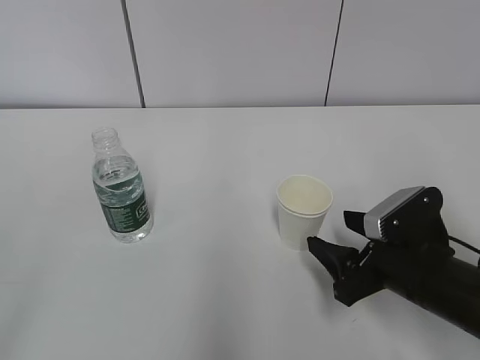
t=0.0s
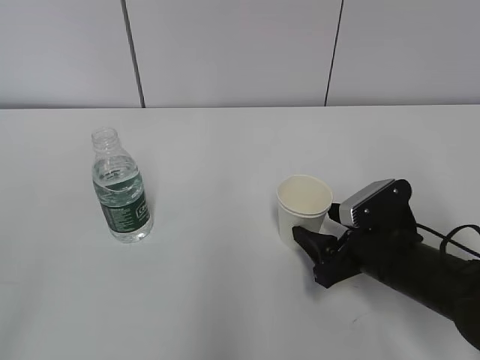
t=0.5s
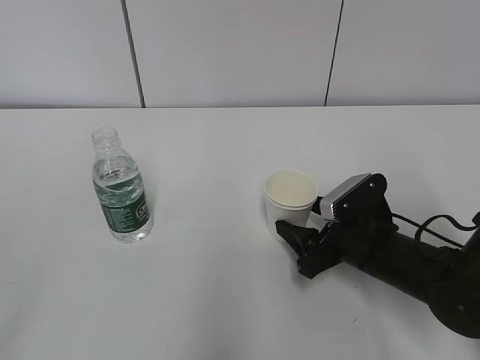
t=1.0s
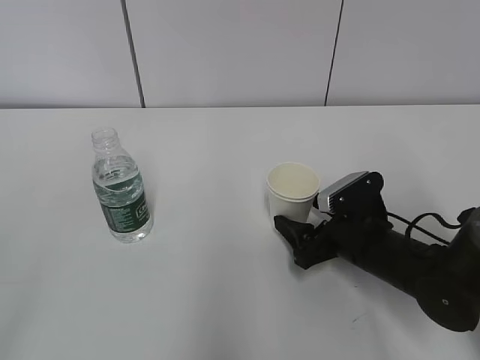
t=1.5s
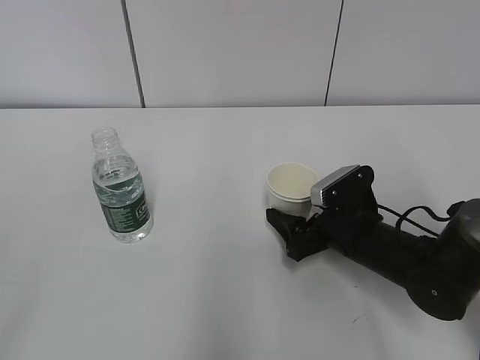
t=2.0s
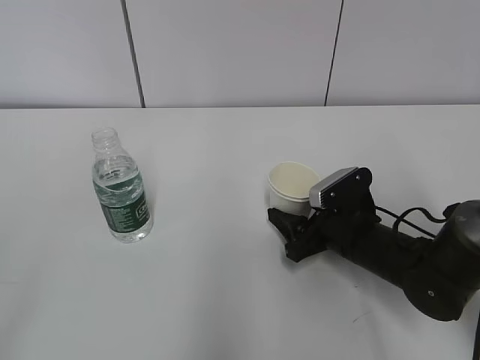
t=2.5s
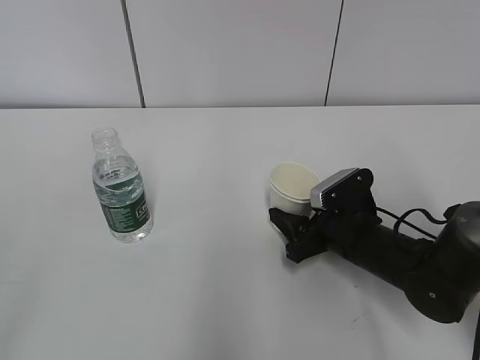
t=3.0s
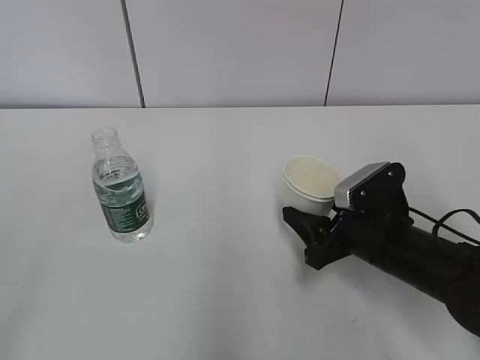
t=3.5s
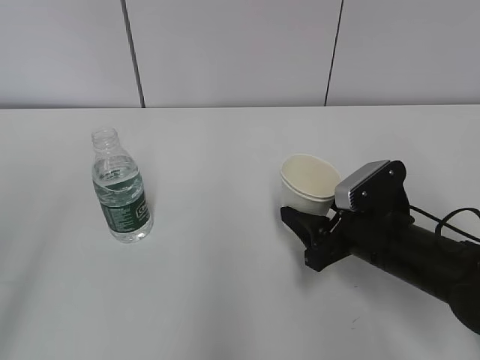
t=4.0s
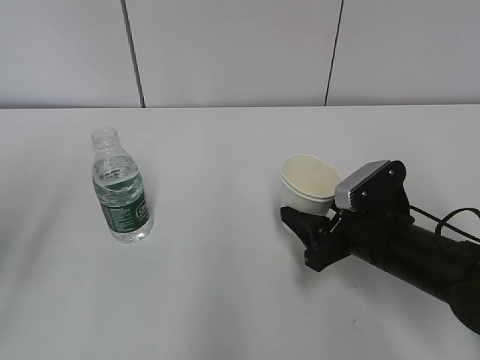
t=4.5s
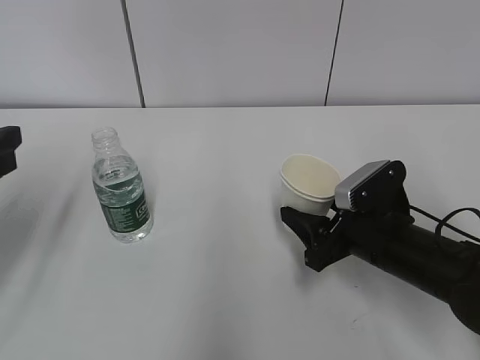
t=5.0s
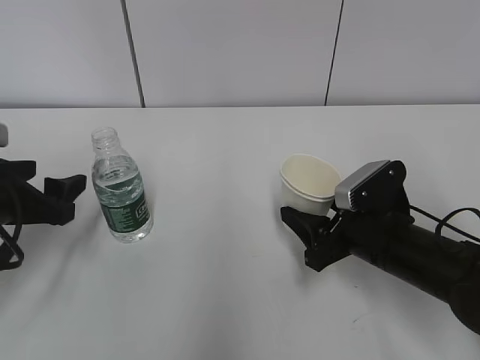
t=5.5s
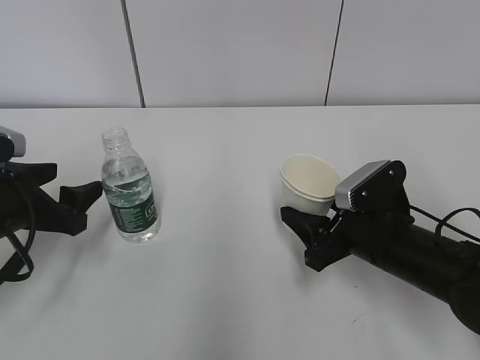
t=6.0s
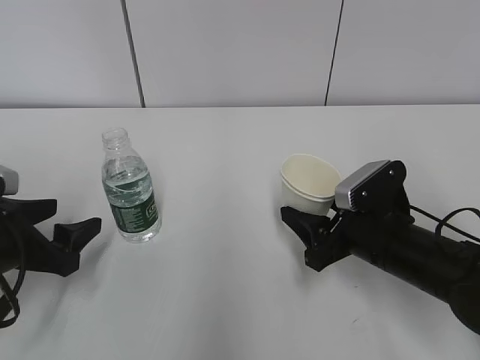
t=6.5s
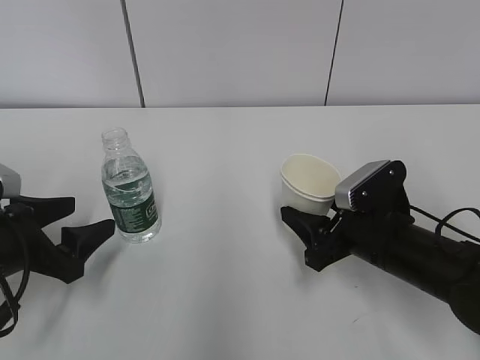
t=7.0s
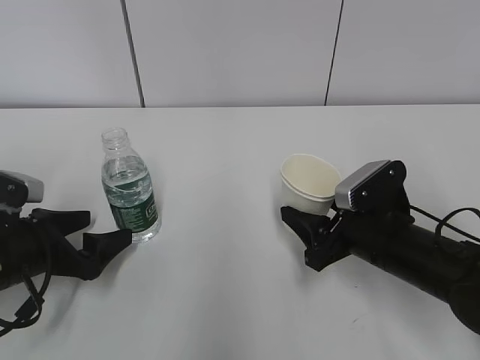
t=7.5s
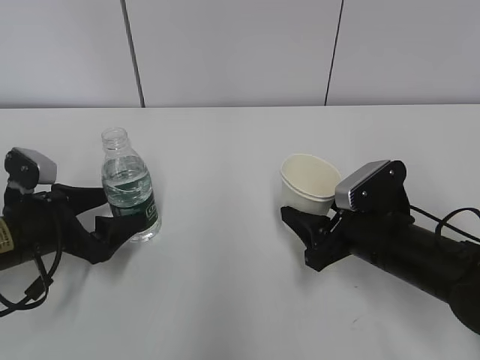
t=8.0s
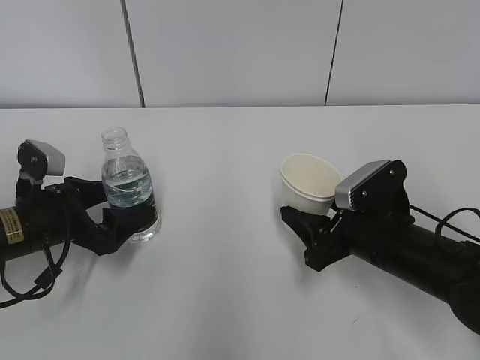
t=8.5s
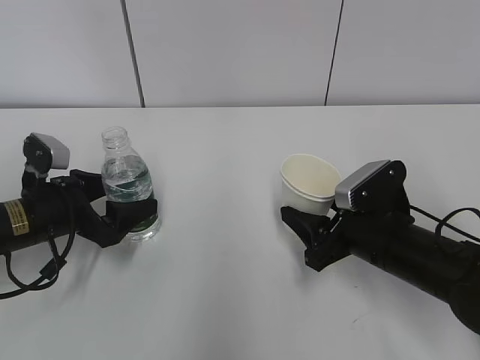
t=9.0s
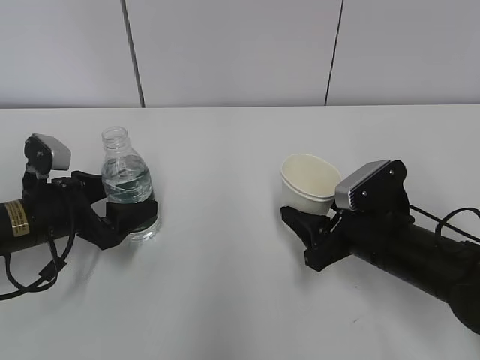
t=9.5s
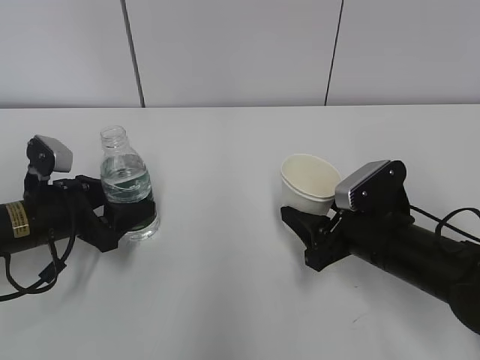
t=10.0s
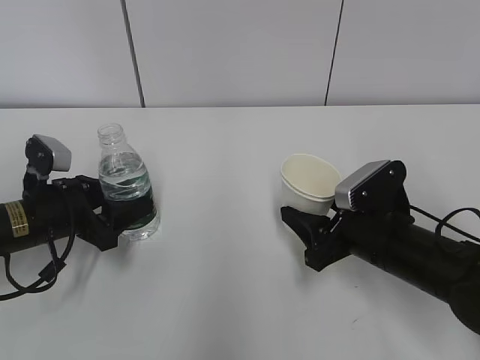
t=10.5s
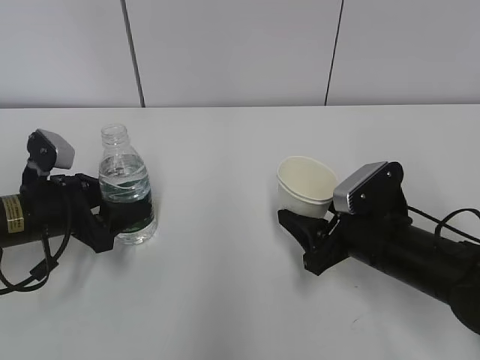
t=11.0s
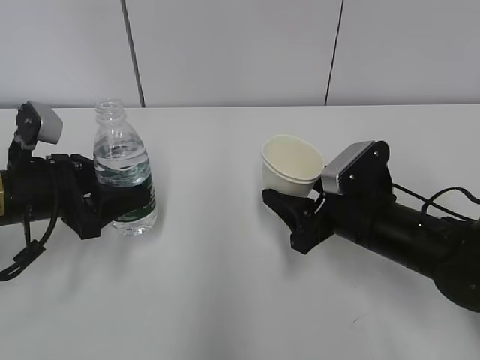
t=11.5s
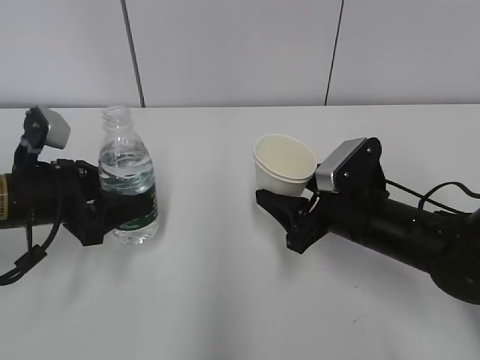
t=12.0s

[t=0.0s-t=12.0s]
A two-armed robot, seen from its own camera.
Step, t=1.5s to t=7.5s: Grab the water bottle with the left hand.
t=0.0s to t=2.0s: The right gripper moves forward, roughly 10 cm, and opens its fingers.
t=2.0s to t=4.0s: The right gripper ends up about 5 cm from where it was, and closes up. The left gripper is displaced forward by about 10 cm.
t=4.0s to t=6.0s: The left gripper moves forward and downward, approximately 30 cm.
t=8.0s to t=10.0s: The left gripper closes up.
t=10.0s to t=12.0s: The left gripper goes some 5 cm upward.

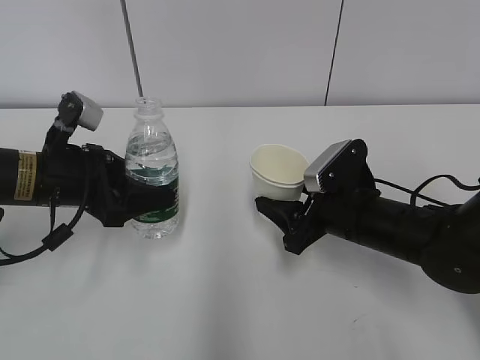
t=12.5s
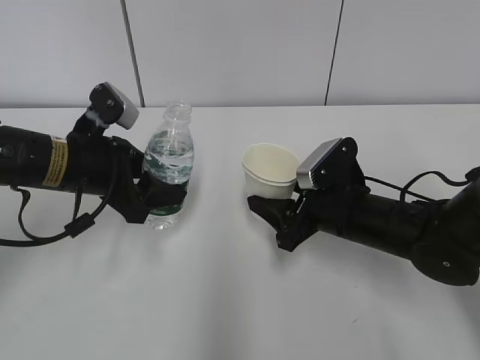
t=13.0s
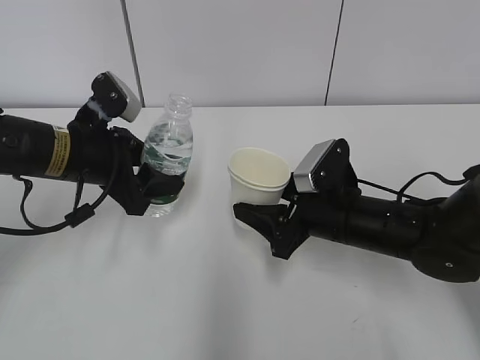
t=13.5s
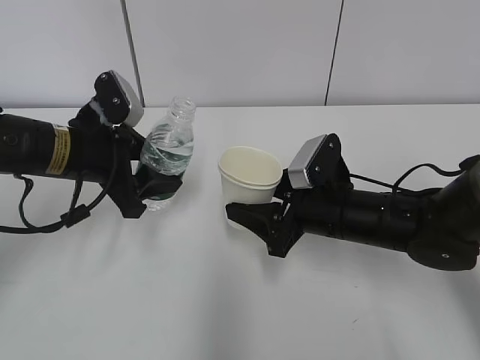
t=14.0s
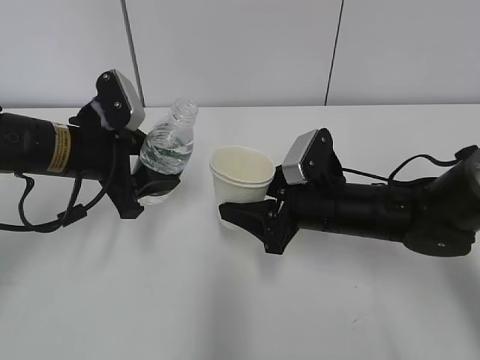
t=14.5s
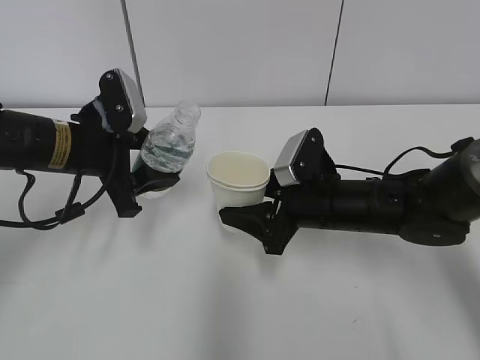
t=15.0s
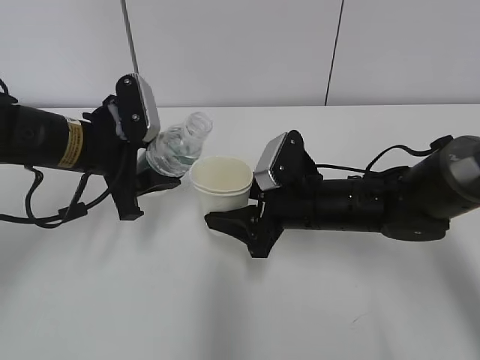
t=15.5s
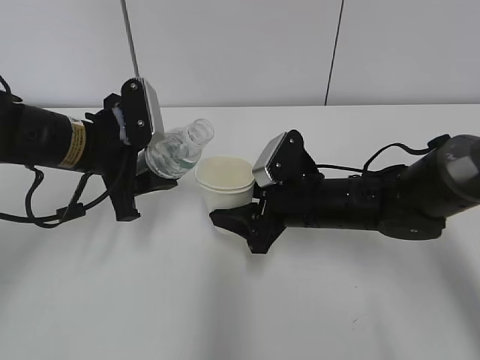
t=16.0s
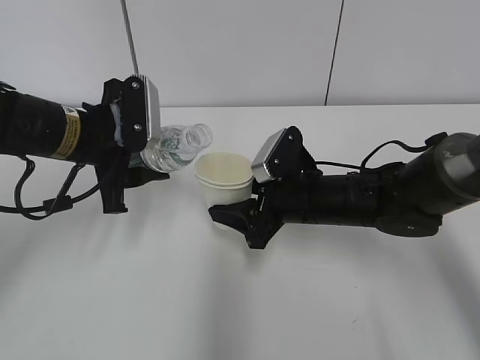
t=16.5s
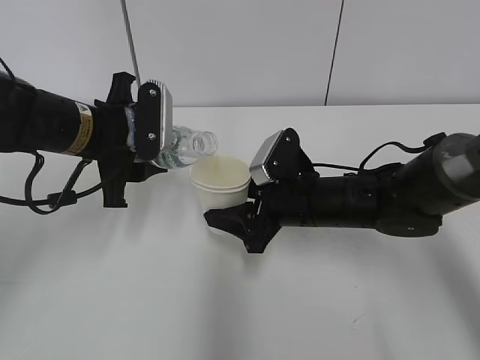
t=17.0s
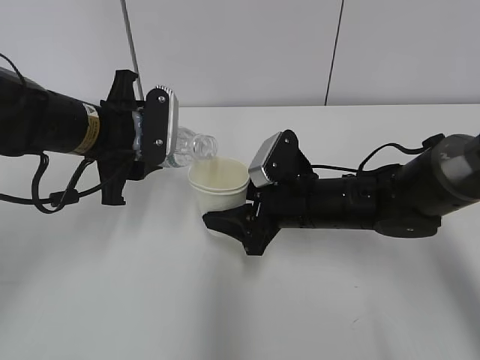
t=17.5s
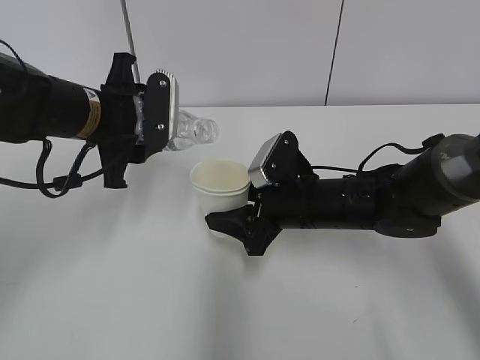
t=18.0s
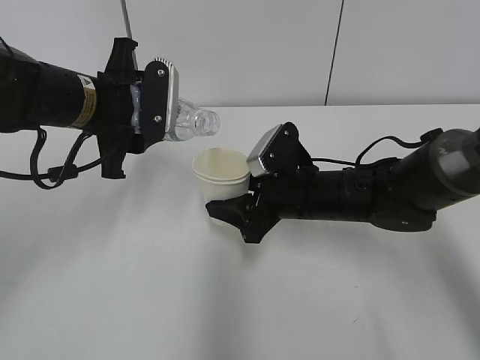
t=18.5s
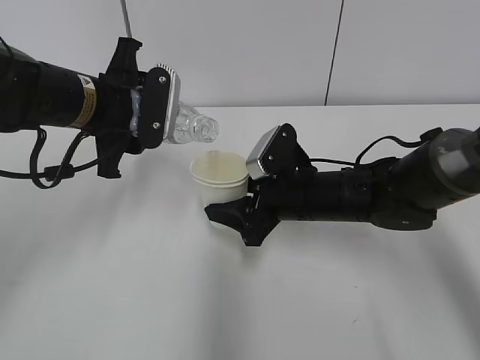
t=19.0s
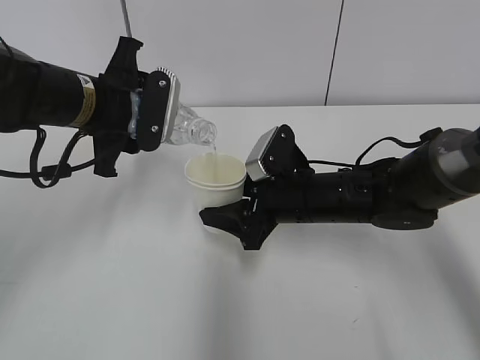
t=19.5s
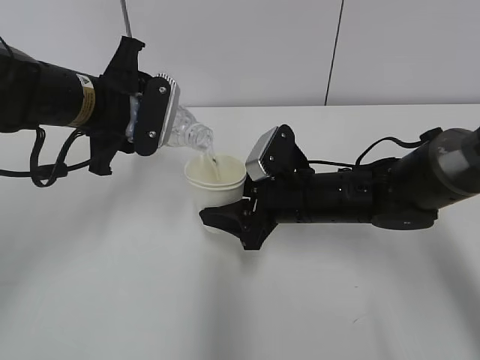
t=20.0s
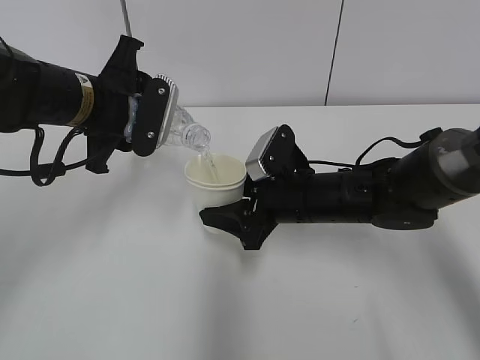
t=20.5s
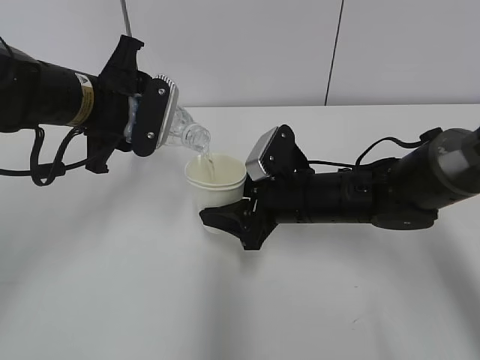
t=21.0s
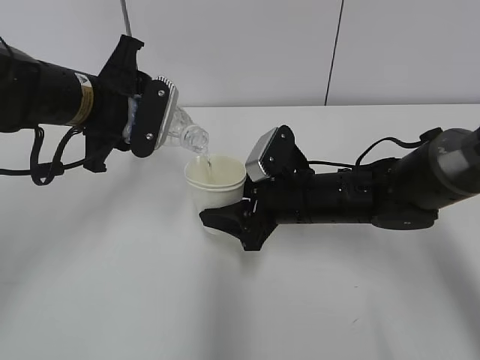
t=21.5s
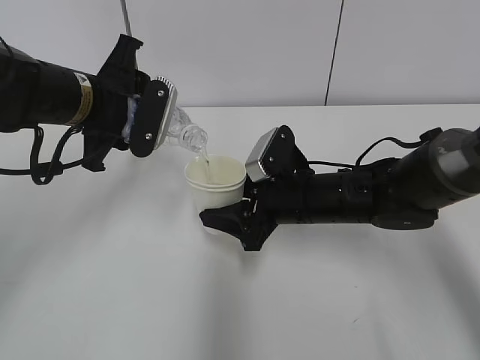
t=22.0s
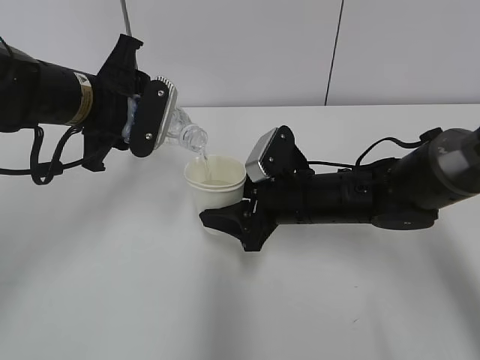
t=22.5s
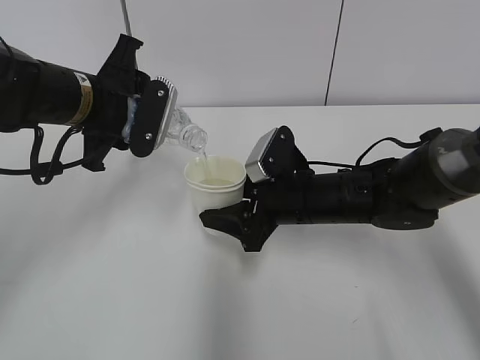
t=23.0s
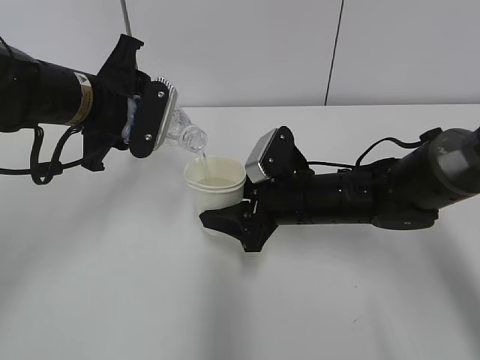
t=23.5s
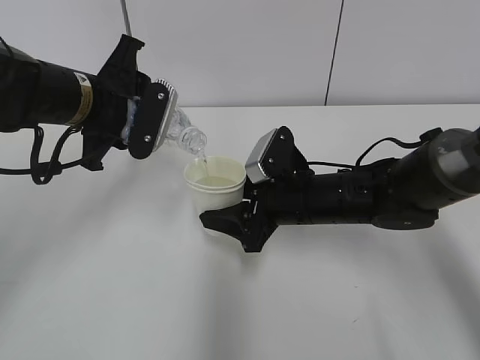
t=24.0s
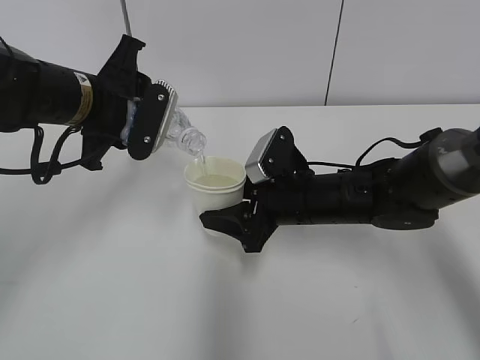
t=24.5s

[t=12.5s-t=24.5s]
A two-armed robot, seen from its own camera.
Step, t=12.5s to t=14.5s: Lift the paper cup with the right hand.
Step, t=15.0s to t=20.0s: Fill water with the right hand.
Step, t=15.0s to t=20.0s: Pour water with the left hand.
Step, t=20.5s to t=21.5s: Collect water with the left hand.
t=18.5s to t=20.5s: The grippers make only small movements.
t=20.5s to t=24.5s: Both grippers stay about where they are.

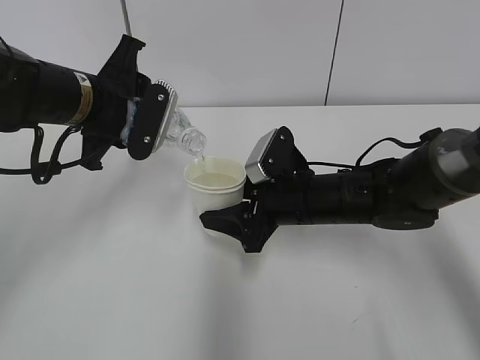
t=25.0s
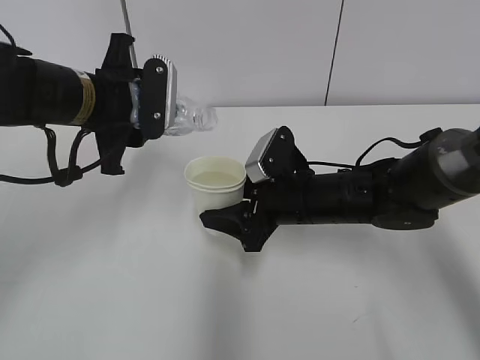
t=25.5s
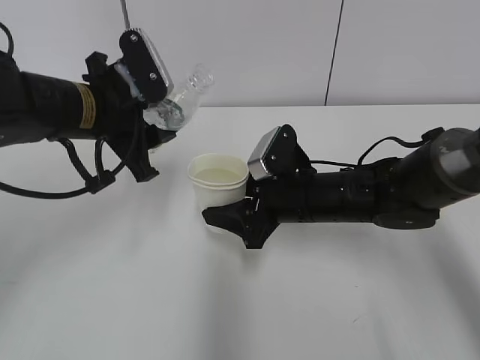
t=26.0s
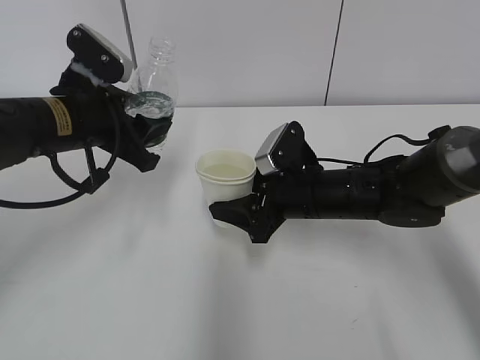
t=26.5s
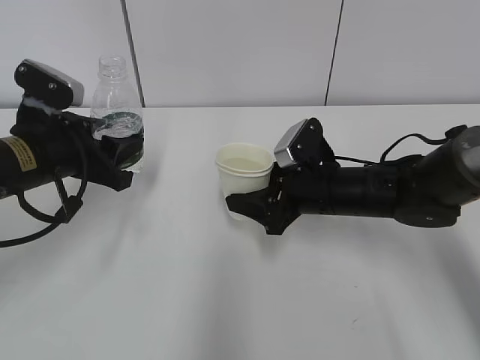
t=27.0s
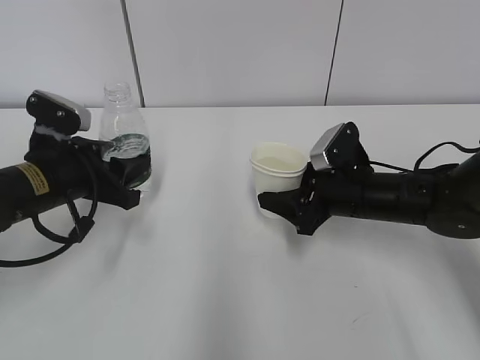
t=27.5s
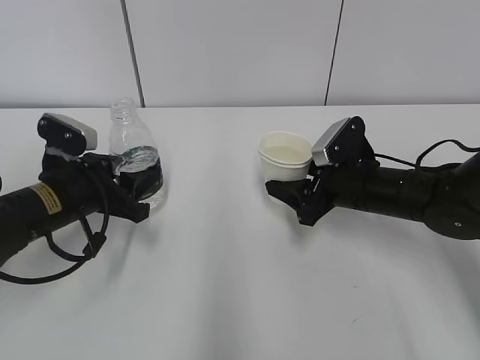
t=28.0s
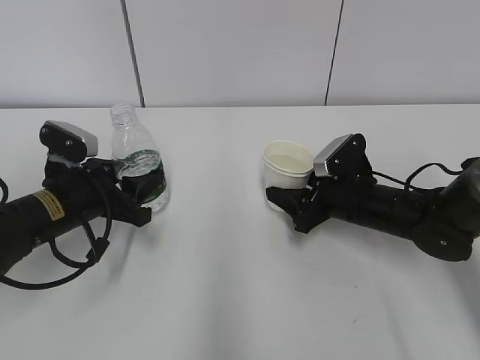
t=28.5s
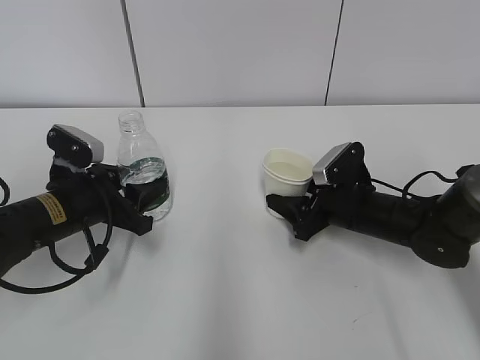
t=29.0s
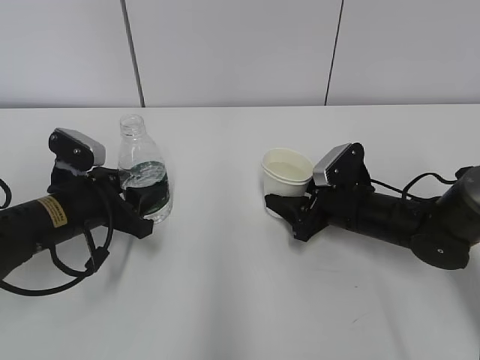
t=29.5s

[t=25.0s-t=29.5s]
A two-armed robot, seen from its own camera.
t=25.0s to t=27.0s: The left gripper moves downward, approximately 5 cm.
t=27.0s to t=29.5s: The left gripper shifts roughly 10 cm downward. Meanwhile the right gripper goes approximately 5 cm downward.
